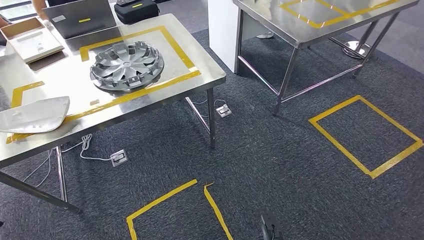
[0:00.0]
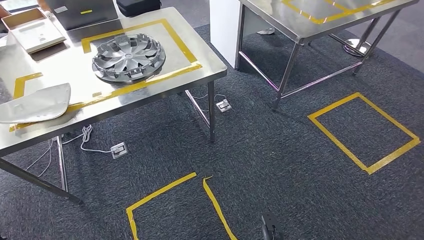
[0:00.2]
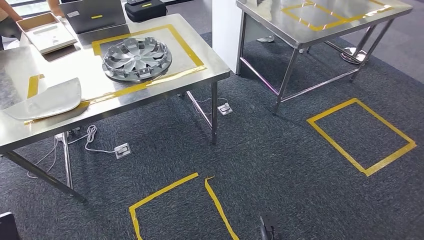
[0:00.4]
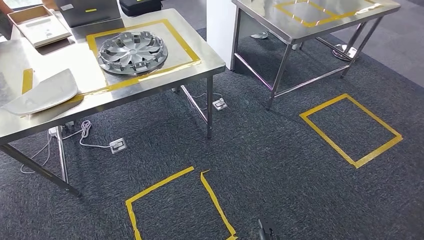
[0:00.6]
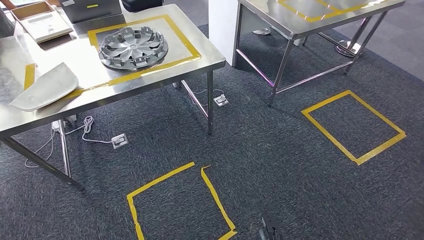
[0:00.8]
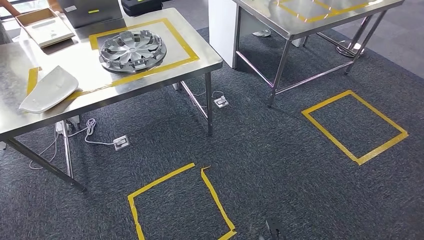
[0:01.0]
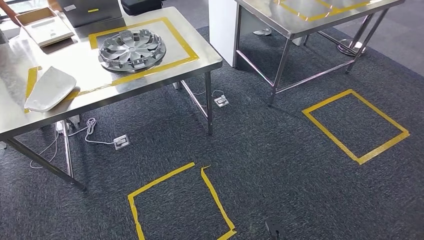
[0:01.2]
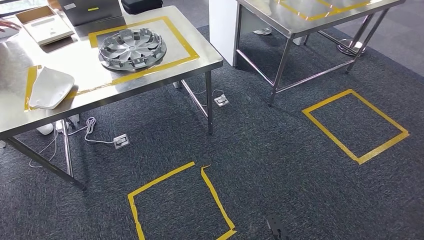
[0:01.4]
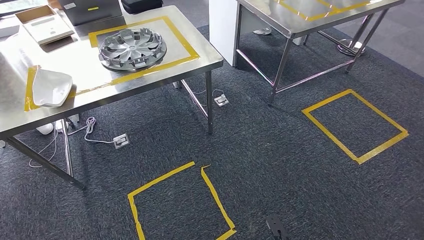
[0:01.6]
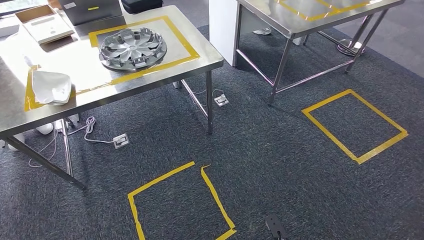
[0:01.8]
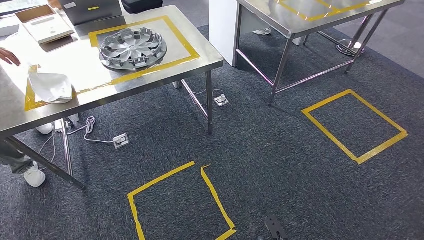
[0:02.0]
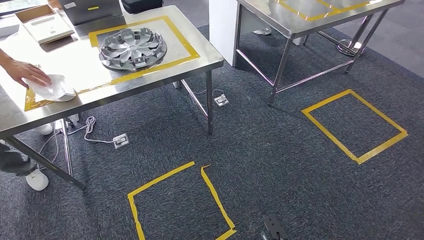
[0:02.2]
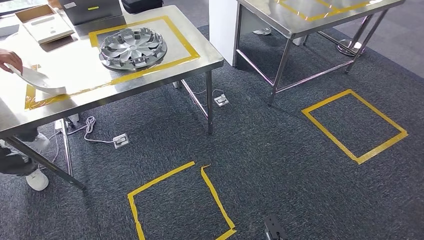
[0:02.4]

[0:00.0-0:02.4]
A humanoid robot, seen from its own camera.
Step, 0:00.0 to 0:02.4: Return to the initial position at the workbench.
